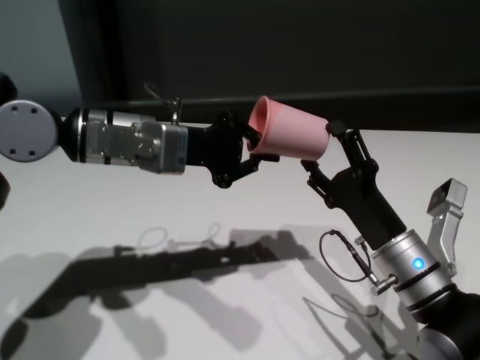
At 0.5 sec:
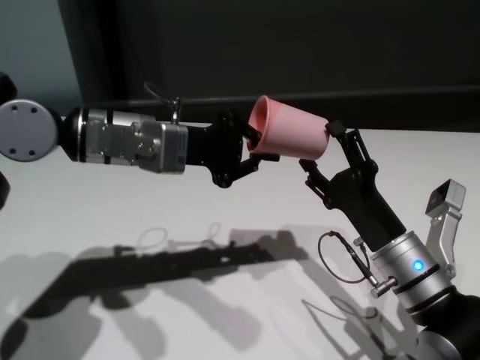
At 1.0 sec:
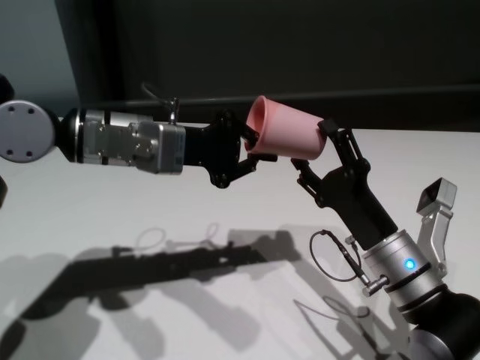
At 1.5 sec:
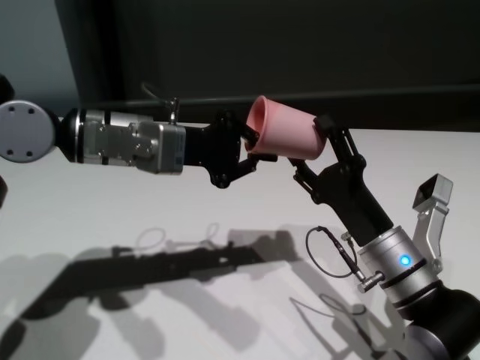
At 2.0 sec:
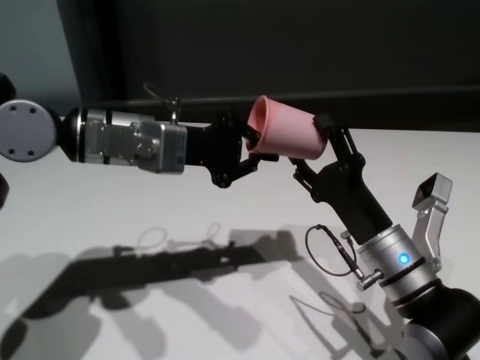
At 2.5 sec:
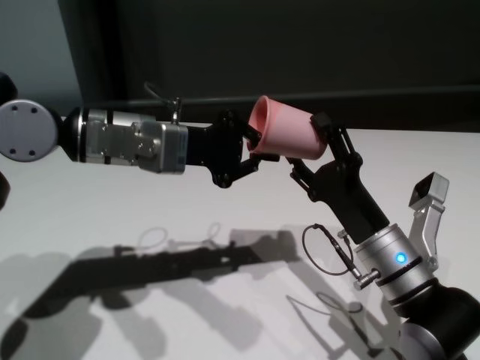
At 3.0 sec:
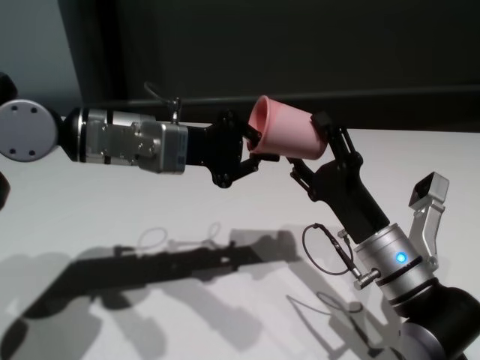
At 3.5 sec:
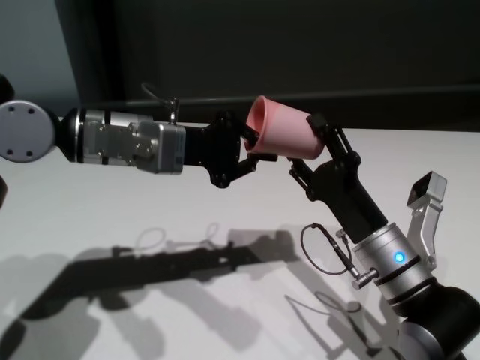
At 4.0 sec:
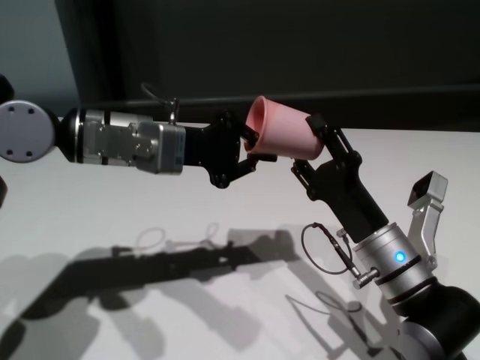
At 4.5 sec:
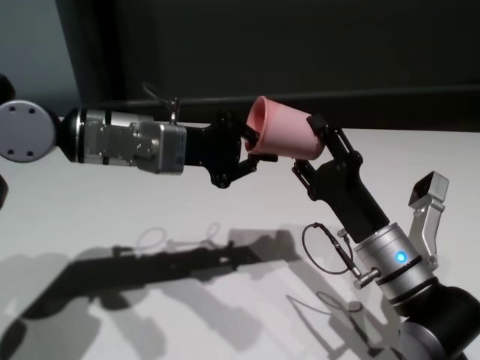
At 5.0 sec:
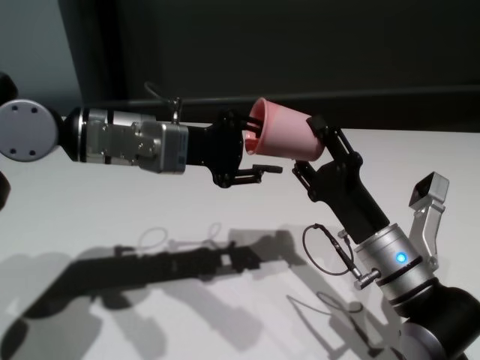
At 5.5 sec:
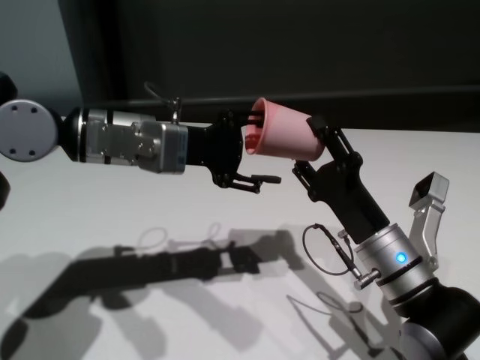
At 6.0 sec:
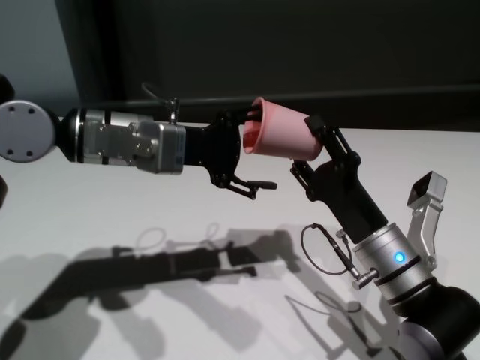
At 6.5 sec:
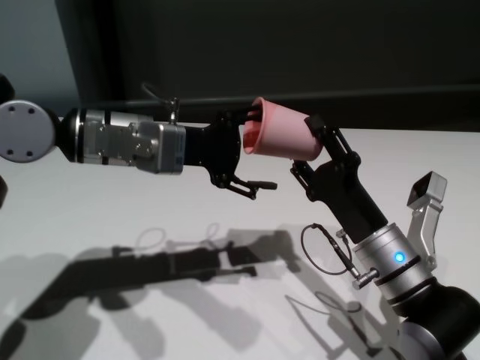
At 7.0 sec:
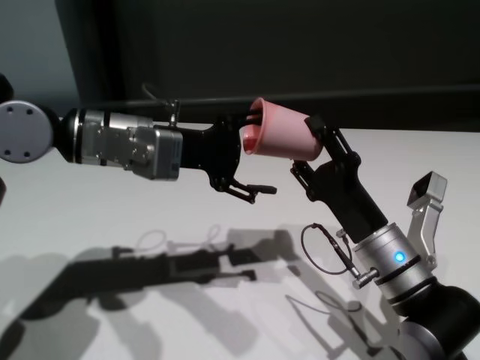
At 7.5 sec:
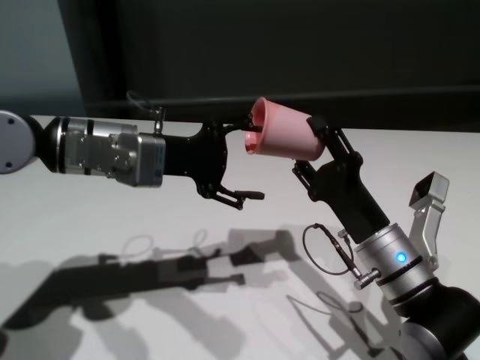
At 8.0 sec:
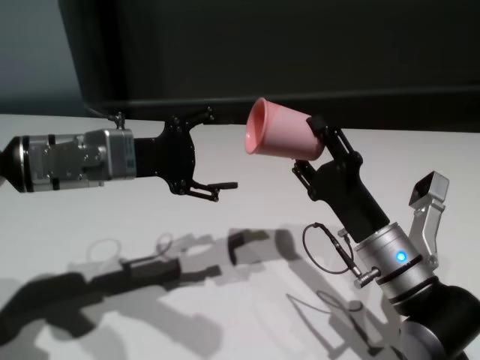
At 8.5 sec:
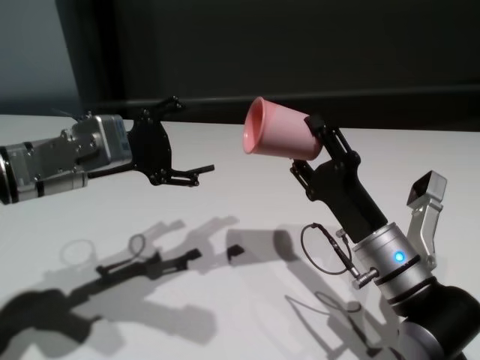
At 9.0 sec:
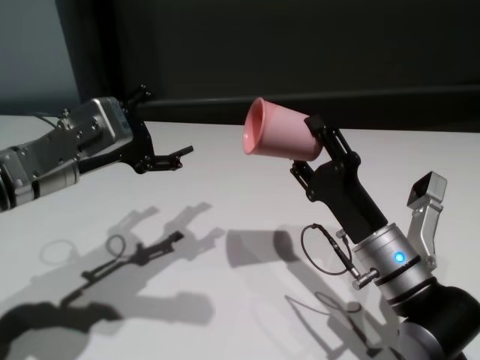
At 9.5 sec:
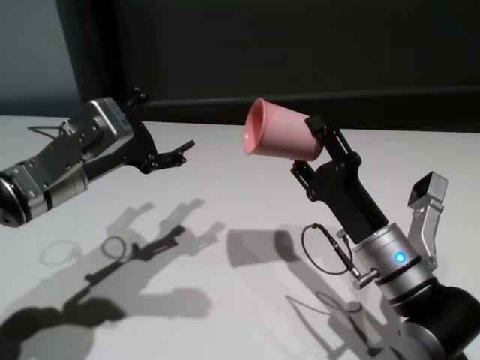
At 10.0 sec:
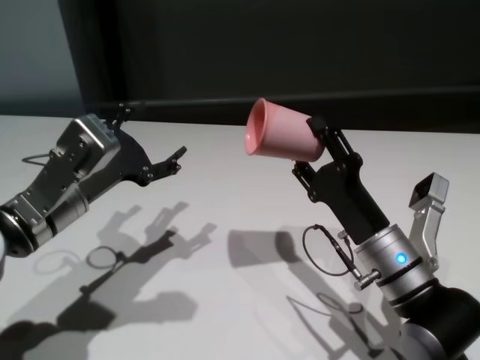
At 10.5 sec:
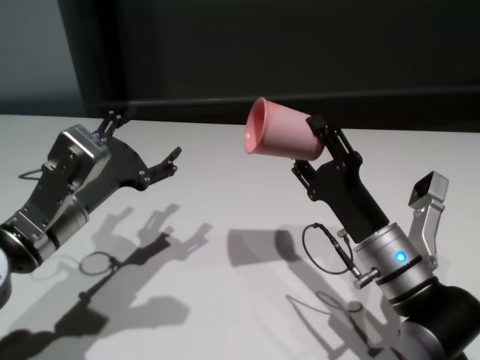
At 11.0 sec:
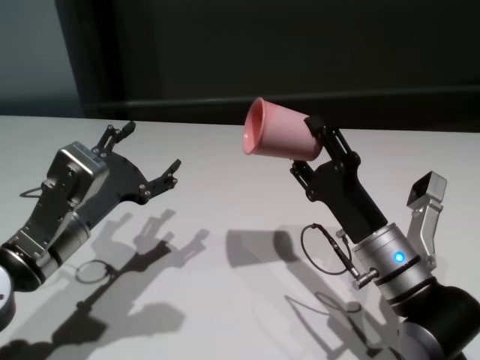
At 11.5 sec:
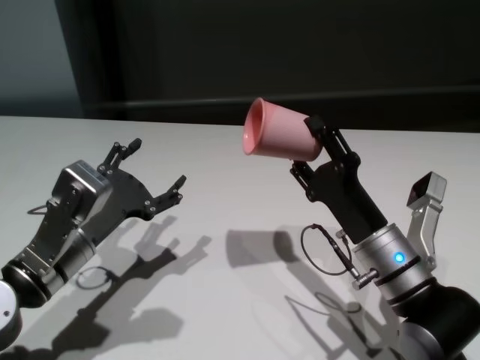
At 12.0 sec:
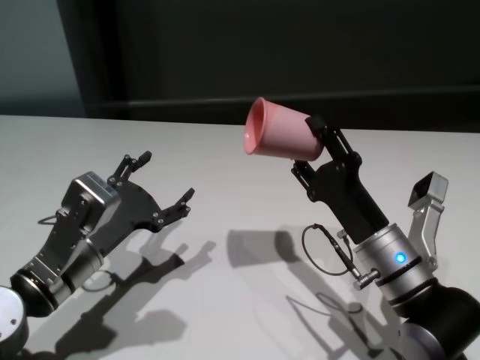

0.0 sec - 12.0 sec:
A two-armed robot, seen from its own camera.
Task of the whole recording: On the white table pick up the cup with one hand and transfer it to the other hand before turning it over.
Step, 0.0 sec - 7.5 sec: Pass the cup to the right gripper.

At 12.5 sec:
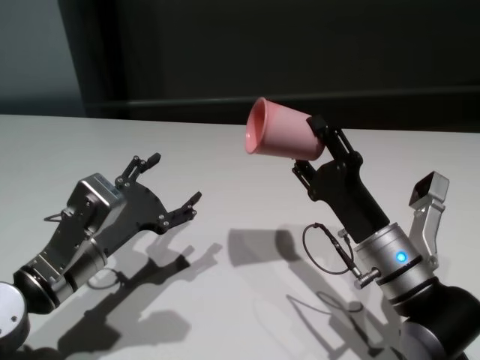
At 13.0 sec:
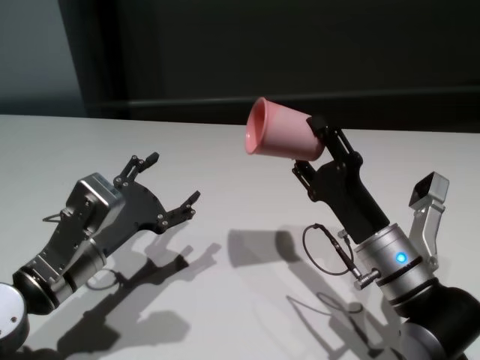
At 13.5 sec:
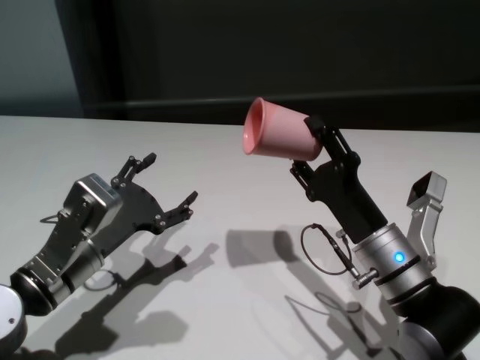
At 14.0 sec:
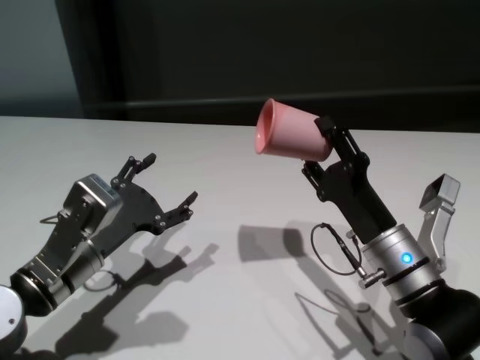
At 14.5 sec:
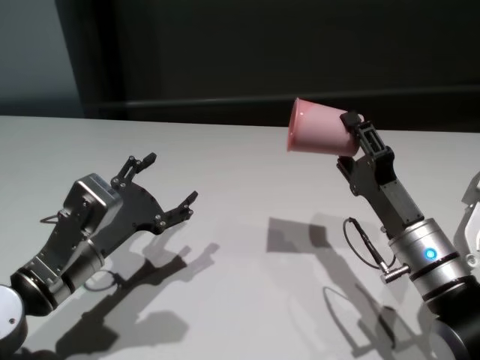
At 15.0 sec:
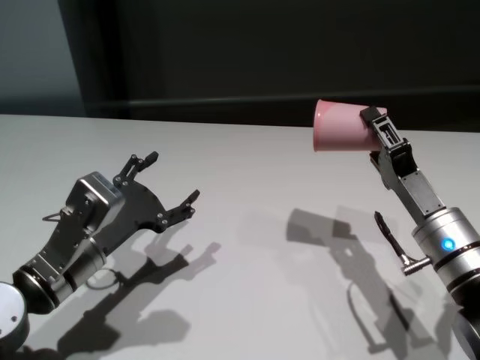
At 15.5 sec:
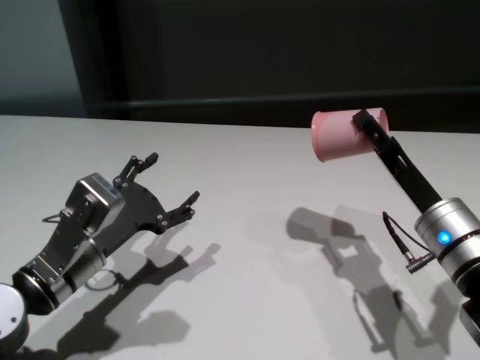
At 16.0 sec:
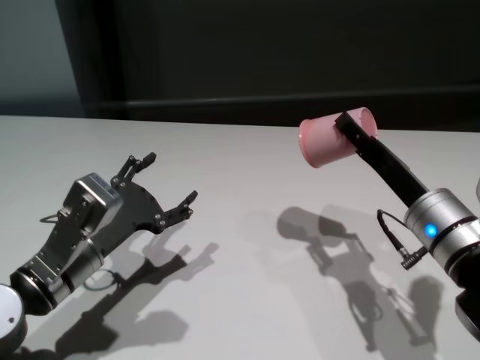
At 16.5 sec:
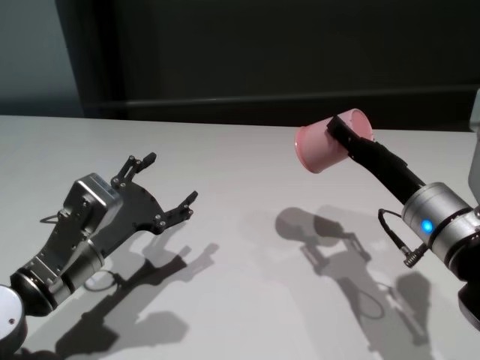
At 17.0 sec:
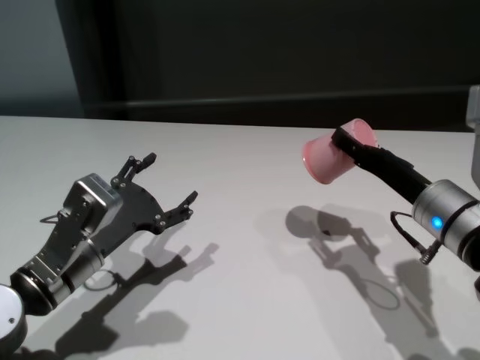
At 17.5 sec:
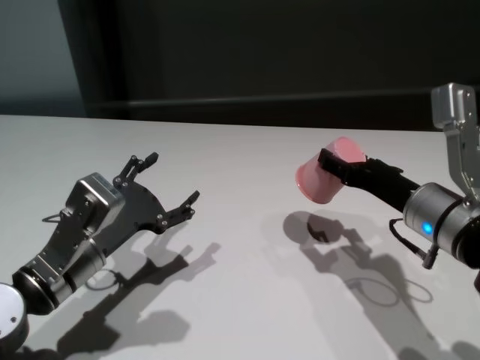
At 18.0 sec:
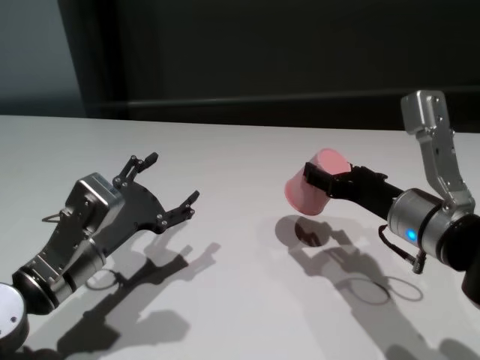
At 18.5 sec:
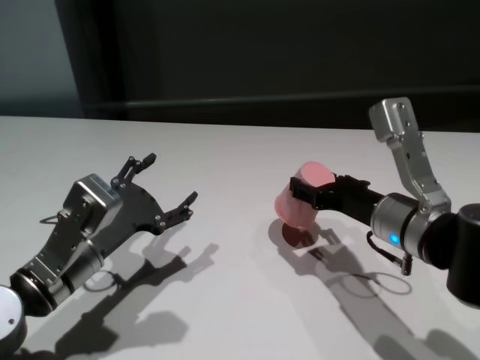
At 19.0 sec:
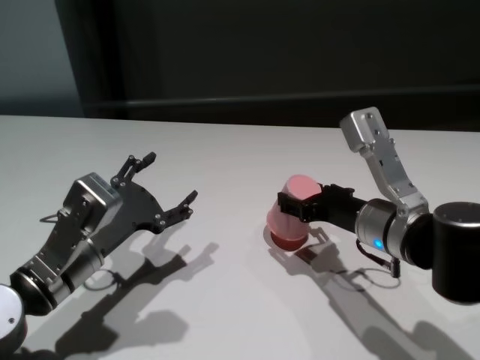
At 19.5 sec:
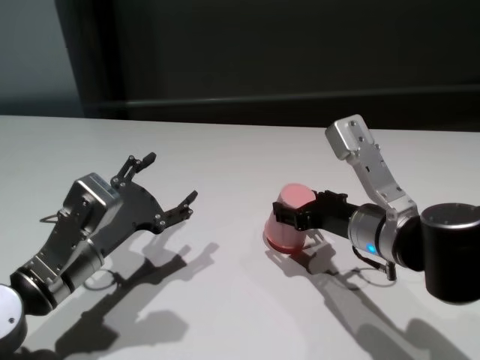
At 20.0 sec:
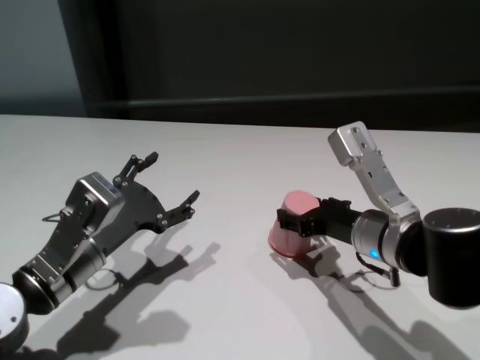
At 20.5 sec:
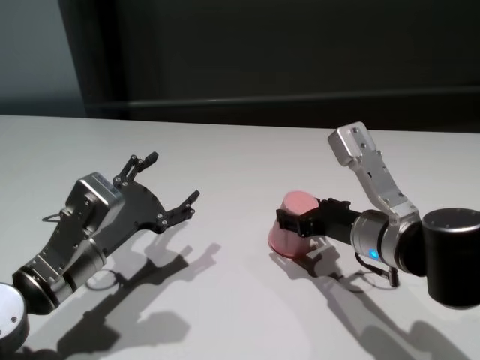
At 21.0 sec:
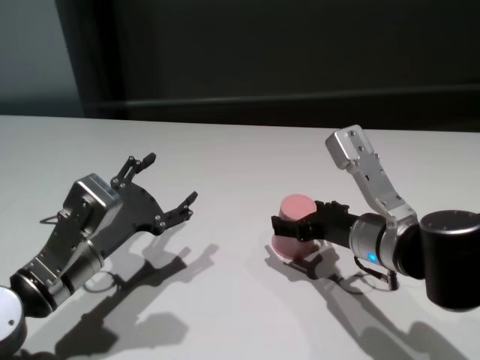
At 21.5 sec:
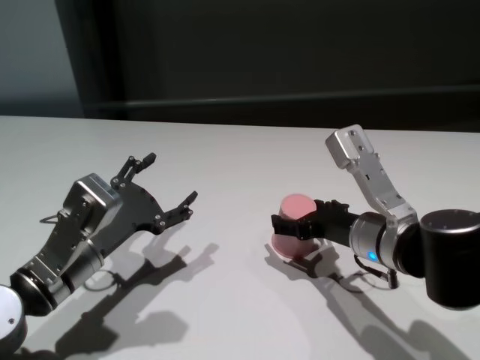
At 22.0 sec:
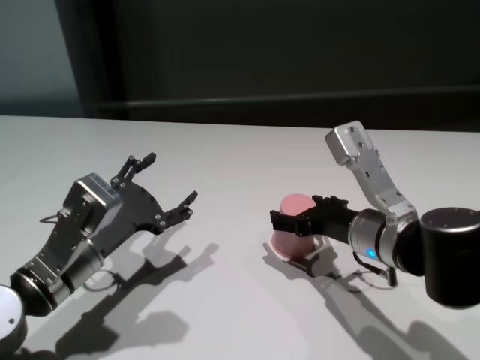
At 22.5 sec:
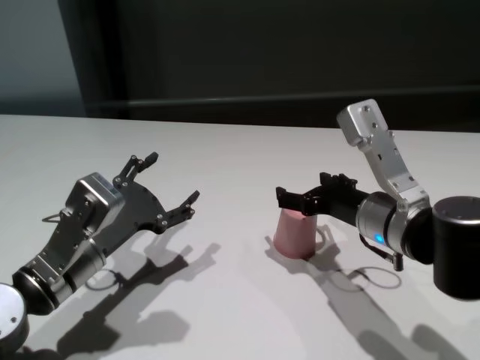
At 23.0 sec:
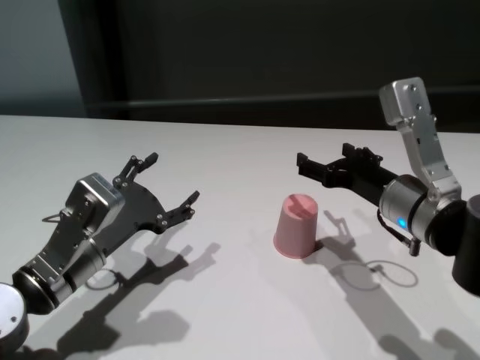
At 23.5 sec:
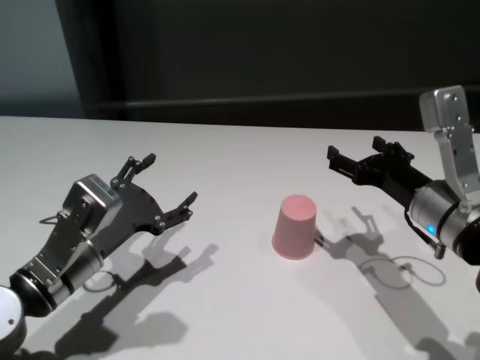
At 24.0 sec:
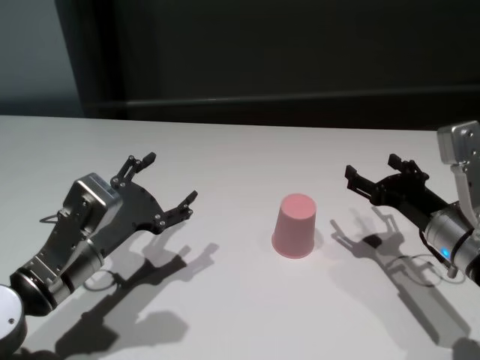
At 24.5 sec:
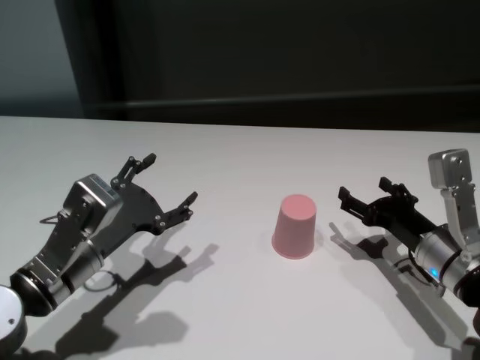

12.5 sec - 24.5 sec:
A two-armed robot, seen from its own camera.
Task of the whole recording: On the white table pick up the cup with one hand and transfer it to the other hand before turning it over.
Step, 12.5 sec - 20.5 sec: Place the cup on the table with right gripper.

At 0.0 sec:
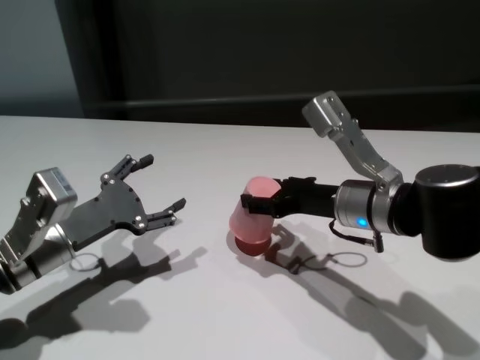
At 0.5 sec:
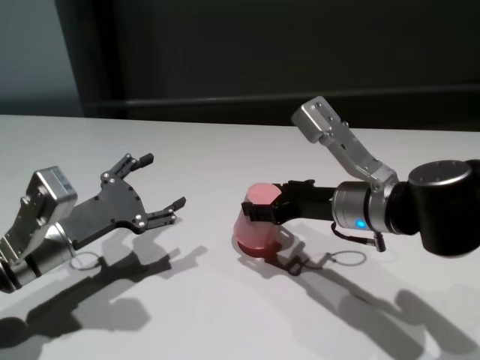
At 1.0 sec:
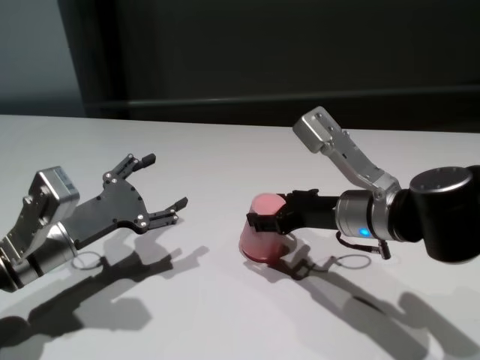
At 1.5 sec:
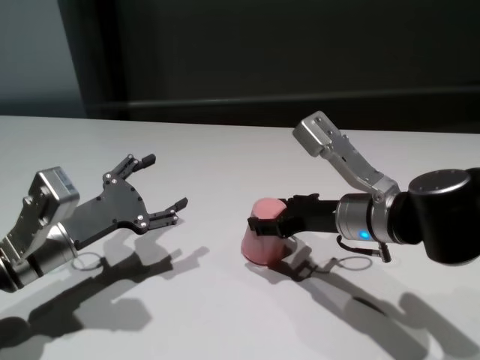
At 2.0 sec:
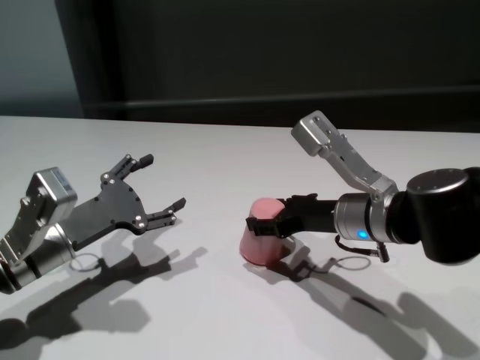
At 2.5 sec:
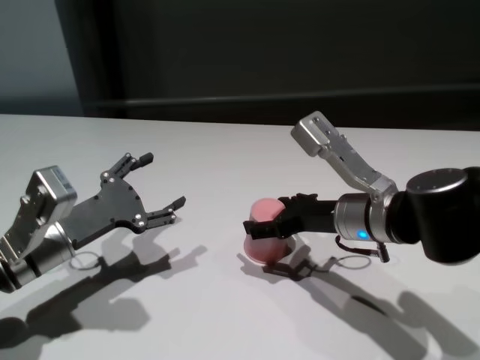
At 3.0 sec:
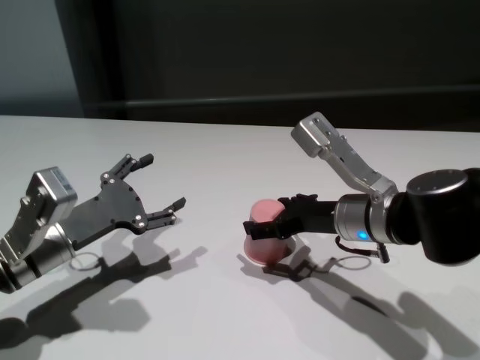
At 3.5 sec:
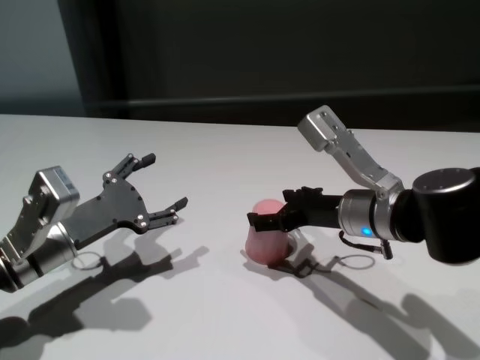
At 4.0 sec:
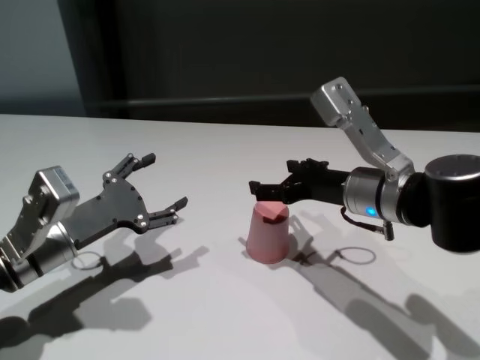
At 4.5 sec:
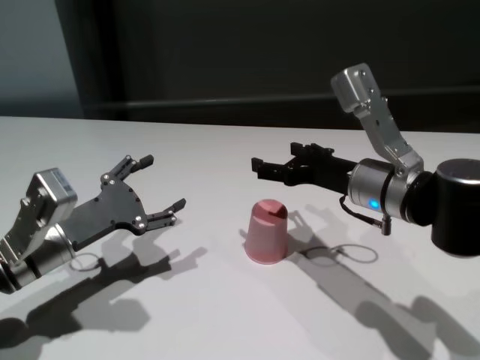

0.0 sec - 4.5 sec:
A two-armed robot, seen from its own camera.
Task of the whole recording: On the white table pick up the cup with one hand and transfer it to the other hand before turning it over.
Step, 0.0 sec - 2.5 sec: Place the cup on the table with right gripper.
